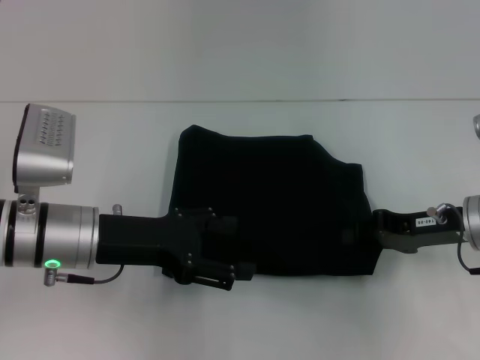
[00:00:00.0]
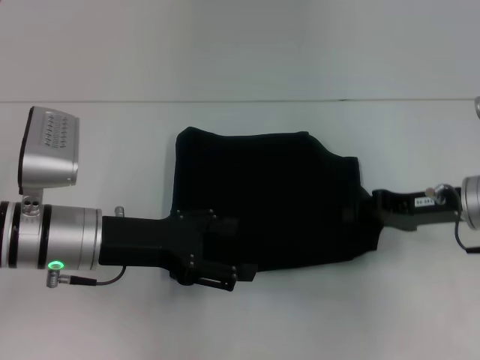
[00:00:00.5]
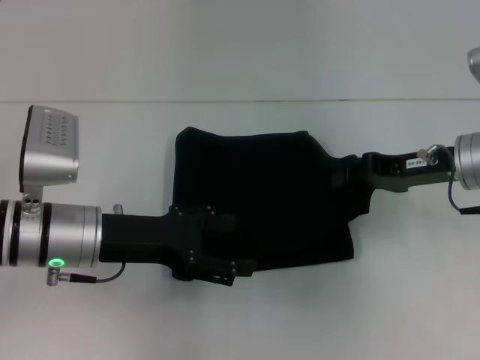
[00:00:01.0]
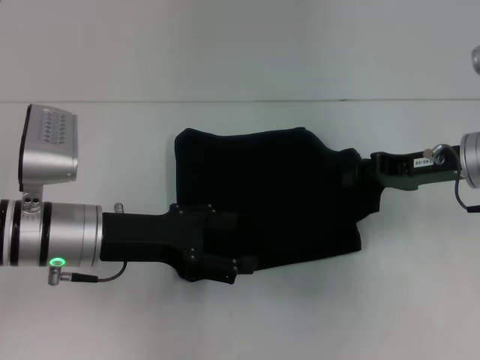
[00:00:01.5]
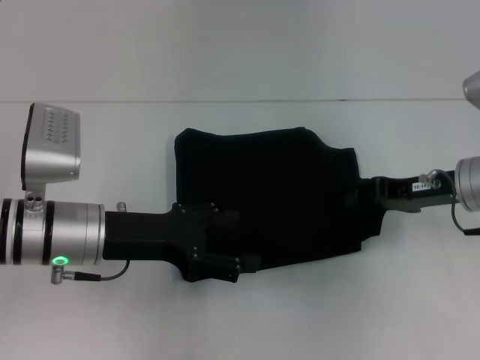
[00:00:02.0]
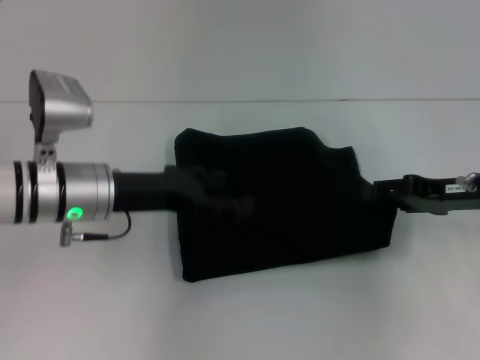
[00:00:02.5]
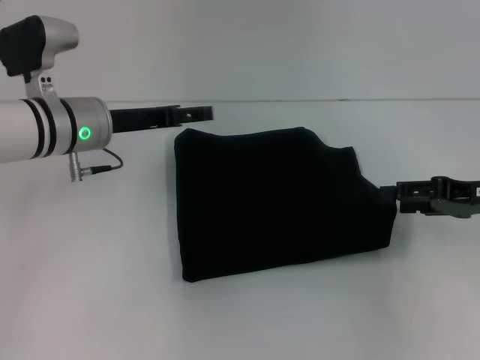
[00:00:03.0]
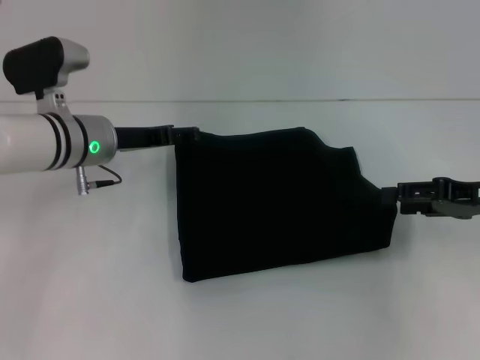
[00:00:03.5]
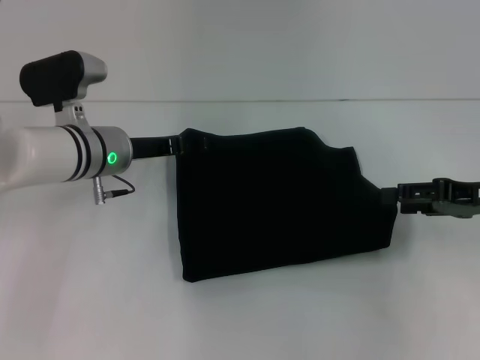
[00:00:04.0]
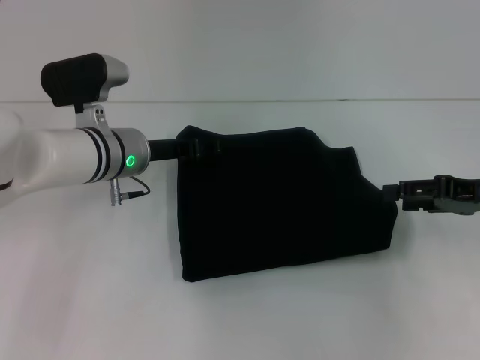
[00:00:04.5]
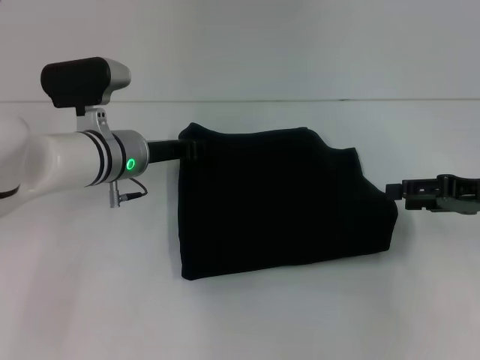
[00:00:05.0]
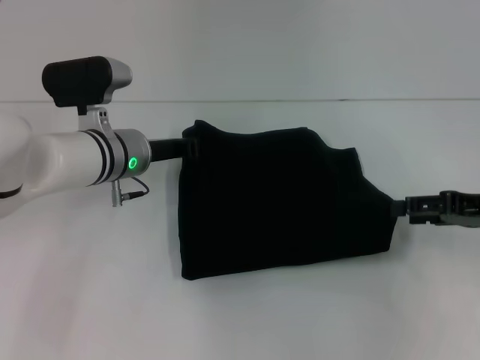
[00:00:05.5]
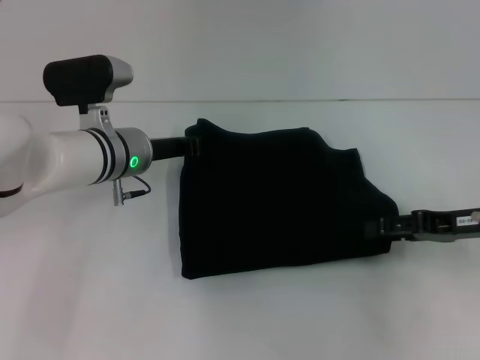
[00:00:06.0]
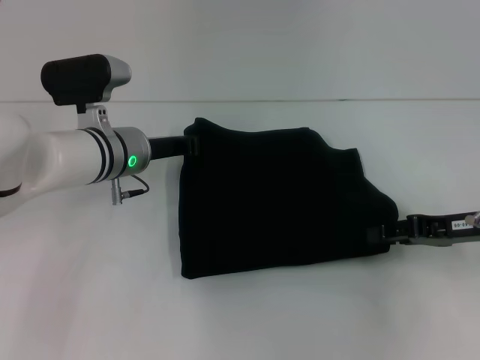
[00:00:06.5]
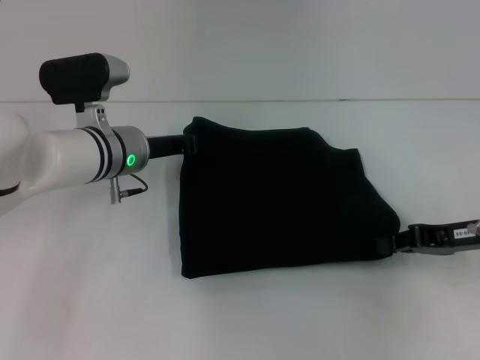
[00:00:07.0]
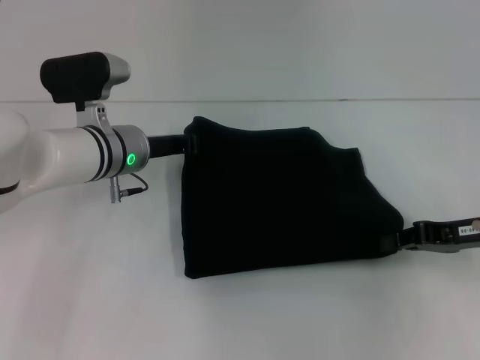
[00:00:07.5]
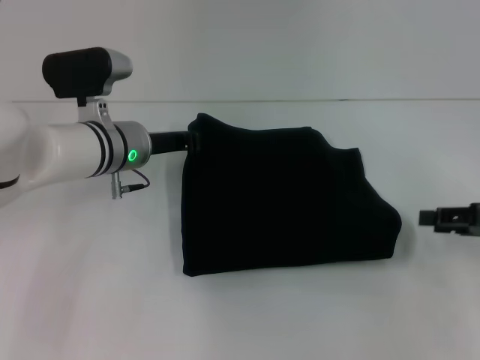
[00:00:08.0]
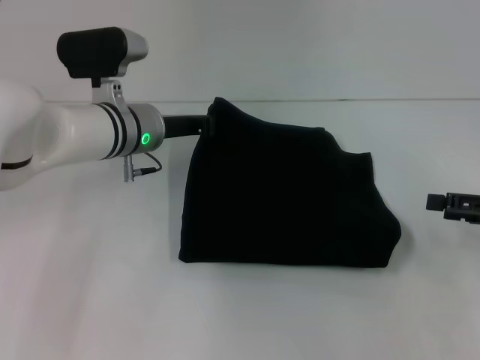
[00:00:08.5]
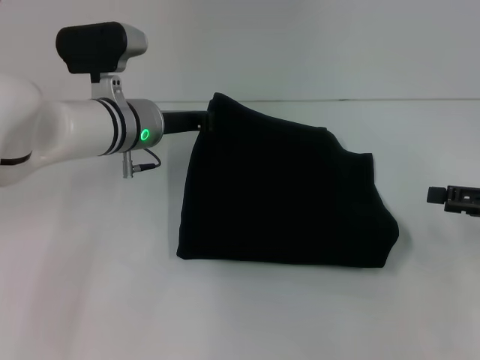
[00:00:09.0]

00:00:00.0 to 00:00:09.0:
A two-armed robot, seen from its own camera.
00:00:02.0 to 00:00:04.5: The left gripper moves forward, about 10 cm. Meanwhile the right gripper travels to the right by approximately 5 cm, and opens its fingers.
00:00:04.5 to 00:00:07.0: The right gripper closes its fingers, while the left gripper closes.
00:00:07.0 to 00:00:09.0: The right gripper is displaced to the right by some 5 cm, and opens.

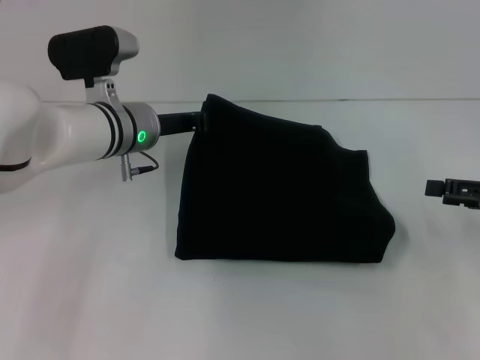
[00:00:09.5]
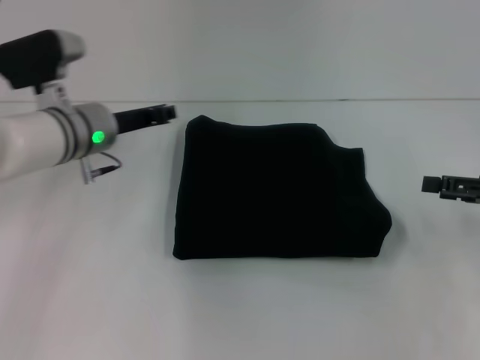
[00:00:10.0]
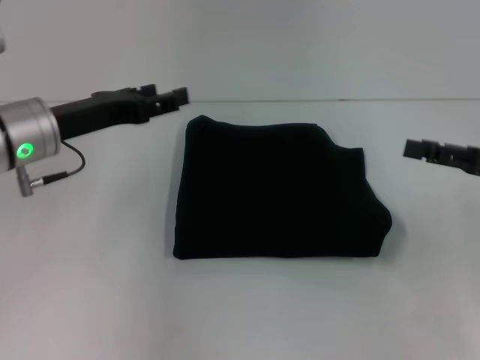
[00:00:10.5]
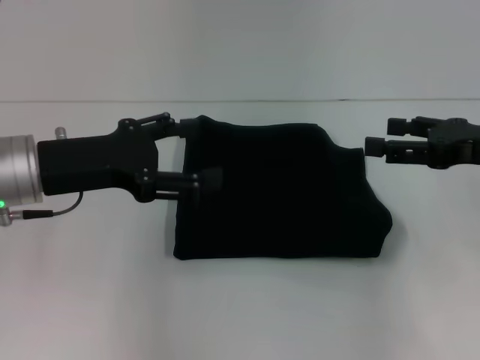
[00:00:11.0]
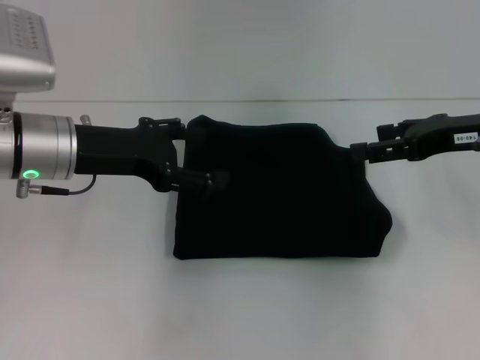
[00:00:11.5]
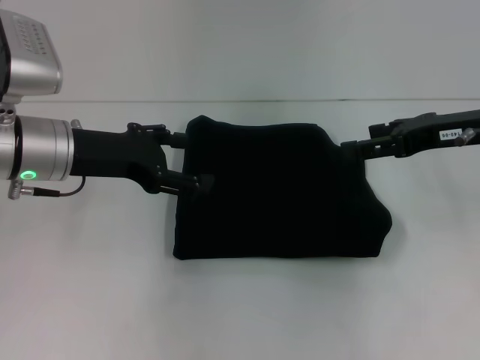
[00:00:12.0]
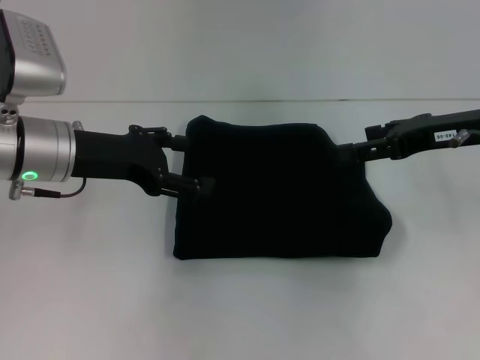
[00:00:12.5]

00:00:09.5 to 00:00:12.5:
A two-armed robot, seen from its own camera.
00:00:09.5 to 00:00:11.0: The right gripper travels to the left and upward by roughly 10 cm. Meanwhile the left gripper is displaced backward, to the left and upward by some 15 cm, and opens up.
00:00:11.0 to 00:00:12.5: The right gripper moves roughly 5 cm.

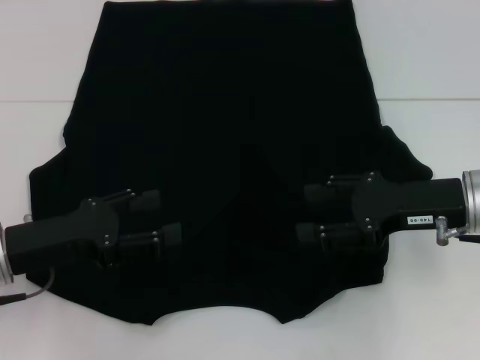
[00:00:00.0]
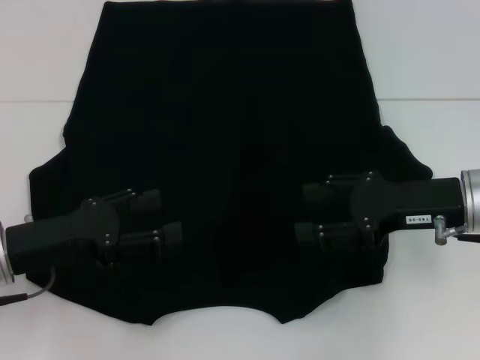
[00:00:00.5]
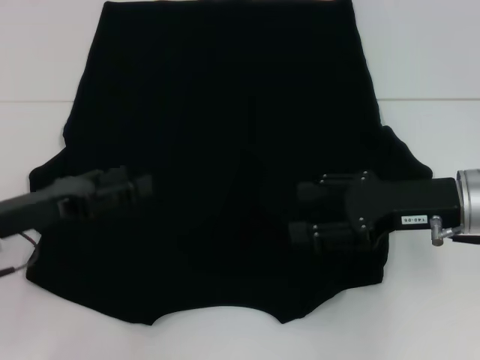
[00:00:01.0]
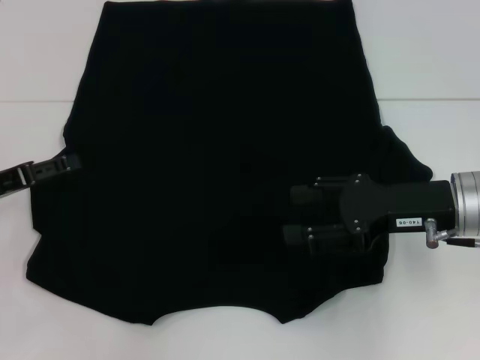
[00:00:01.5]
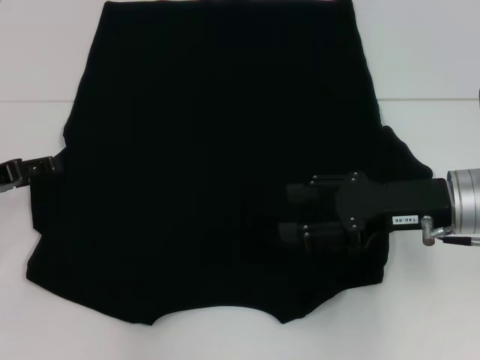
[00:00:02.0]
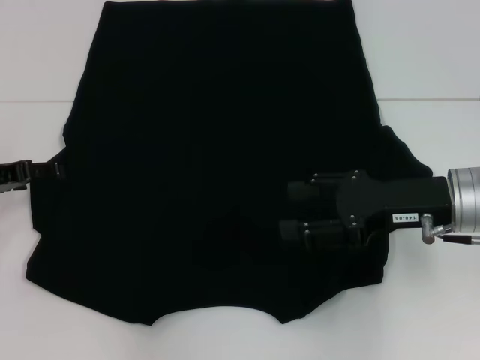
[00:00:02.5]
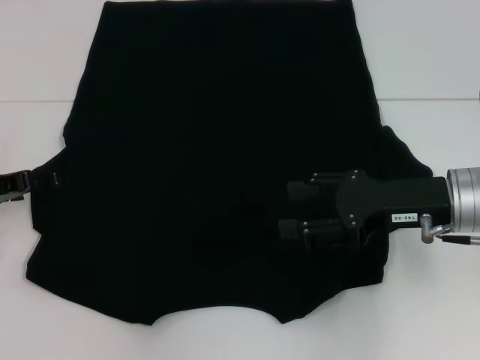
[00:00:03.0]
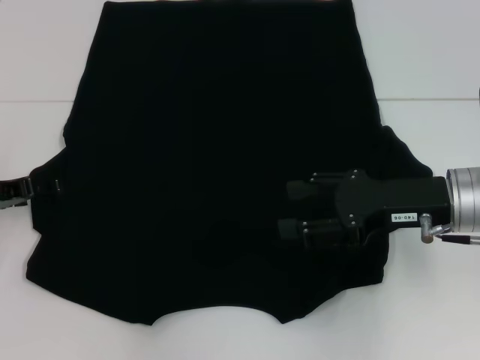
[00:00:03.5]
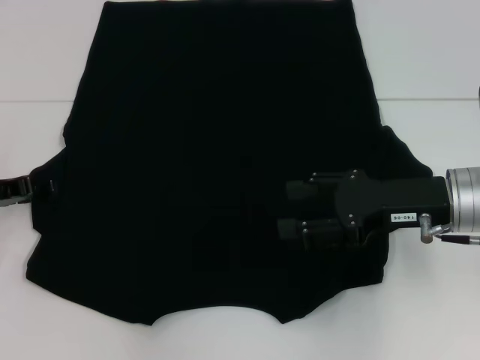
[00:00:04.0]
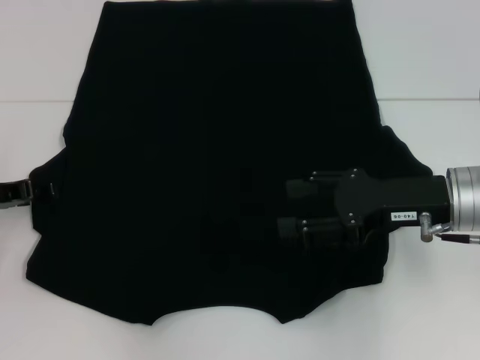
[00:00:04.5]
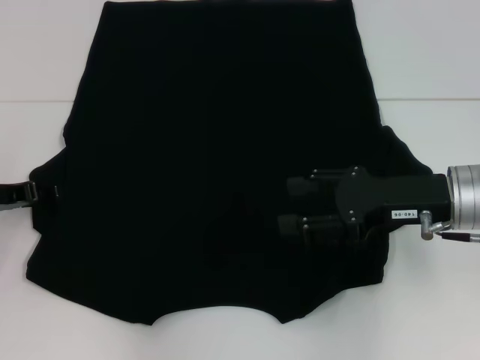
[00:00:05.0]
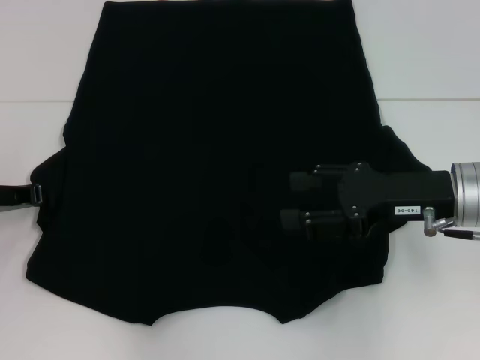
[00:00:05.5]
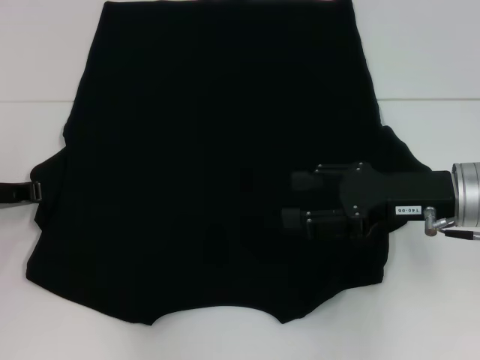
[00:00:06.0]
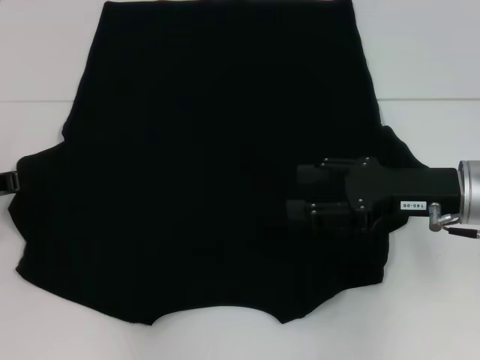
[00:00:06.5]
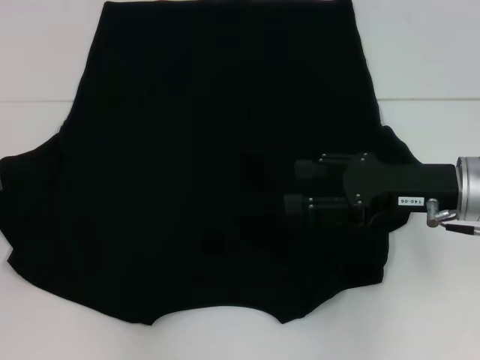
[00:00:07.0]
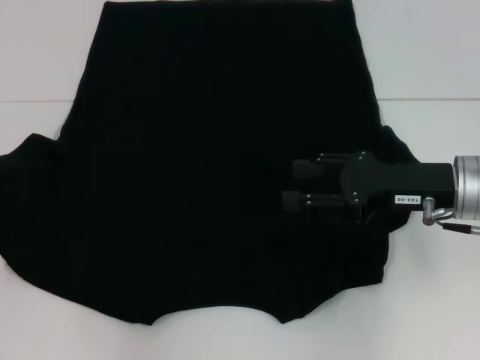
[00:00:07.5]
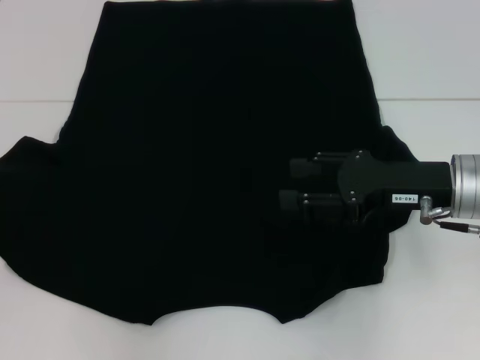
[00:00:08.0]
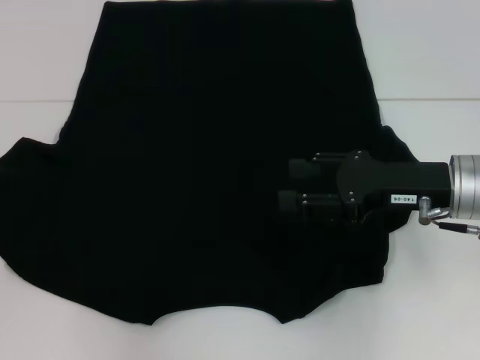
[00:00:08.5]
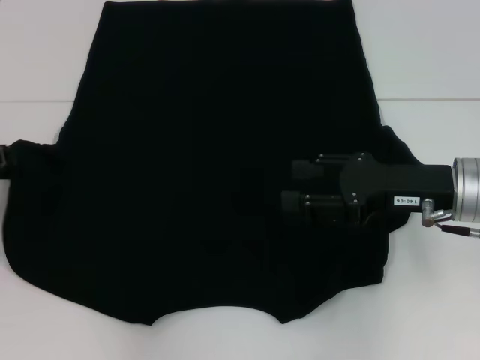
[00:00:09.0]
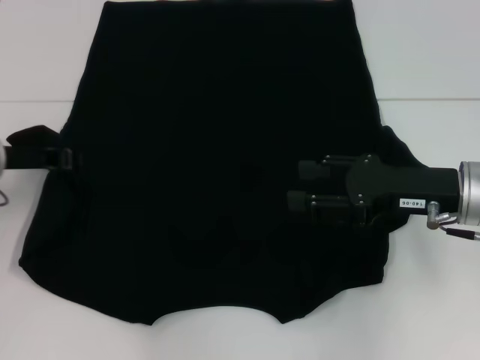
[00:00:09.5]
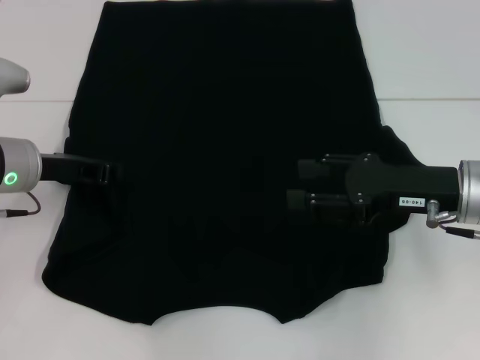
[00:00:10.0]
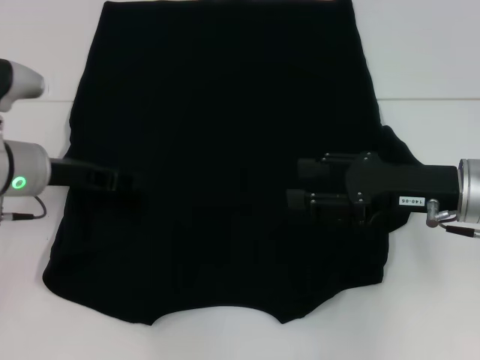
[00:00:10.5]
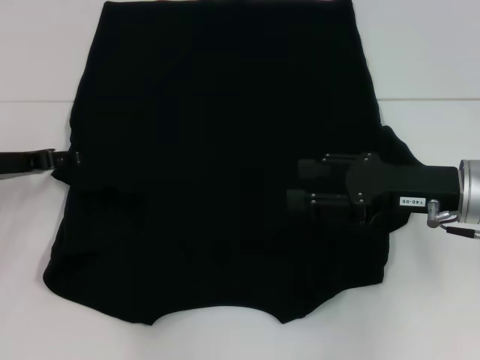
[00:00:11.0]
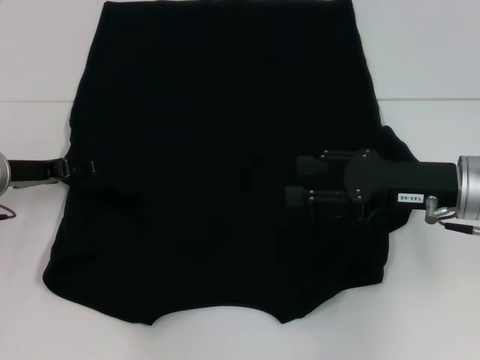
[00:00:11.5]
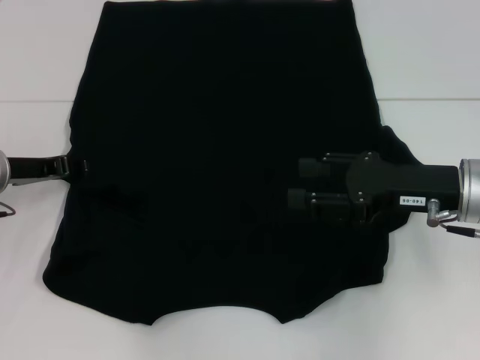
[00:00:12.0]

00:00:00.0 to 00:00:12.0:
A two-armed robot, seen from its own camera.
Step, 00:00:00.0 to 00:00:10.5: Fold the bottom left sleeve with your left hand.
00:00:00.0 to 00:00:02.0: The left gripper heads to the left and forward, covering about 10 cm.
00:00:02.0 to 00:00:04.0: The grippers make only small movements.
00:00:04.0 to 00:00:06.0: The left gripper closes.
00:00:06.0 to 00:00:08.0: The left gripper travels to the left by approximately 5 cm.
00:00:08.0 to 00:00:10.0: The left gripper heads to the right, covering about 10 cm.
00:00:10.0 to 00:00:12.0: The left gripper opens its fingers.

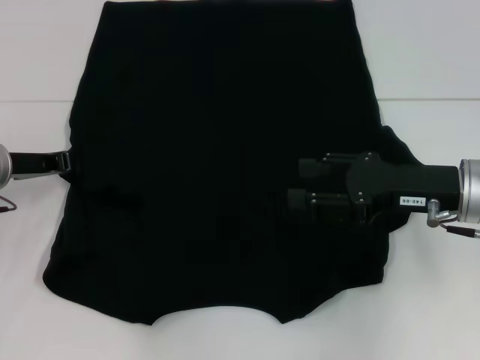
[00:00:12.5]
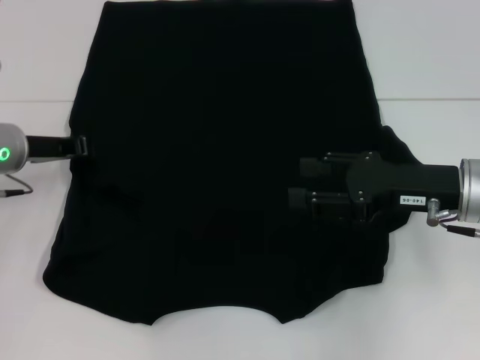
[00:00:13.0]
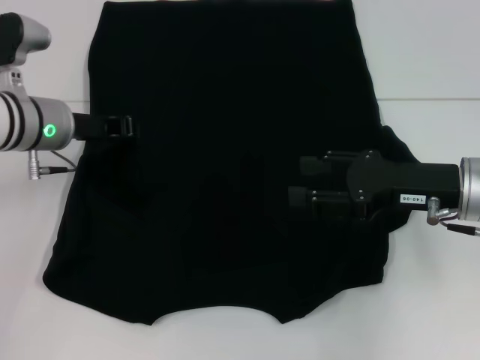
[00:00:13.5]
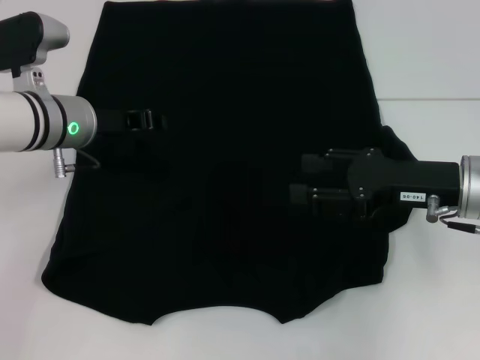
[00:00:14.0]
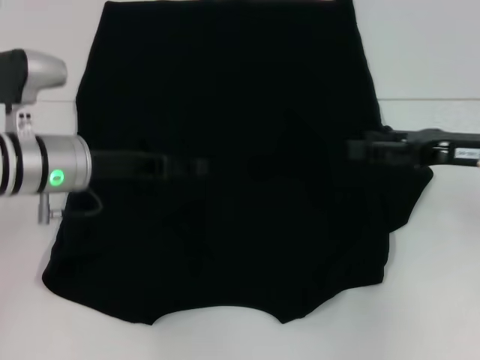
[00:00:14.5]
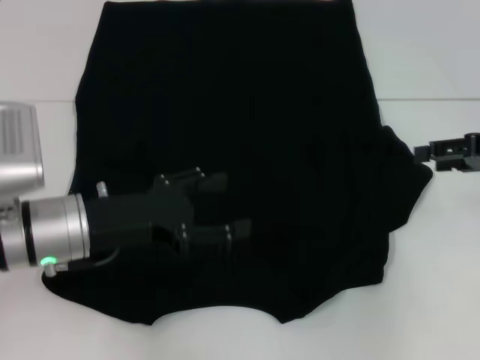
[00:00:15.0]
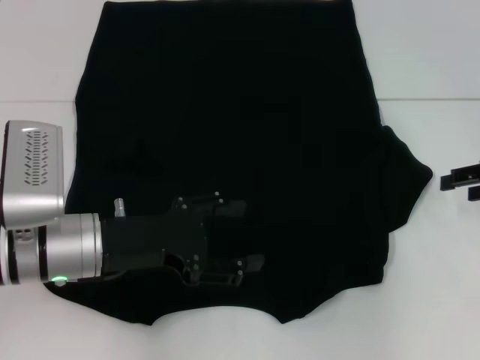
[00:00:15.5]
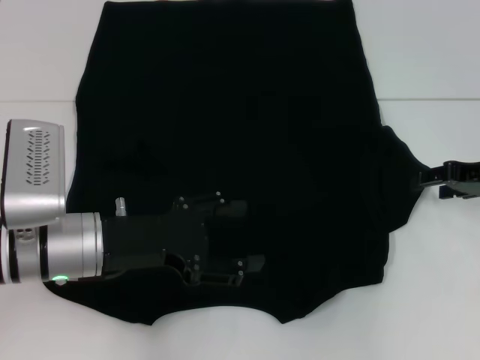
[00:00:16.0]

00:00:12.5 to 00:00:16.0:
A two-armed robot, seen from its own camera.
00:00:12.5 to 00:00:14.5: The right gripper shifts approximately 5 cm to the right. The left gripper is displaced to the right by approximately 10 cm, and opens up.
00:00:14.5 to 00:00:16.0: The left gripper shifts roughly 10 cm backward. Meanwhile the right gripper moves some 5 cm.
